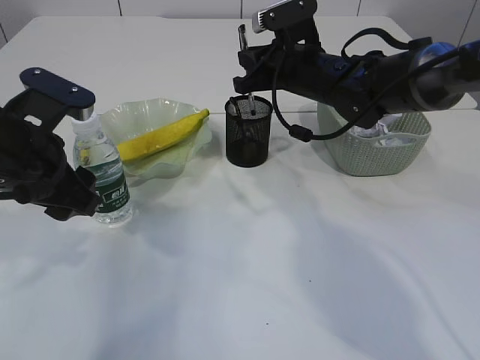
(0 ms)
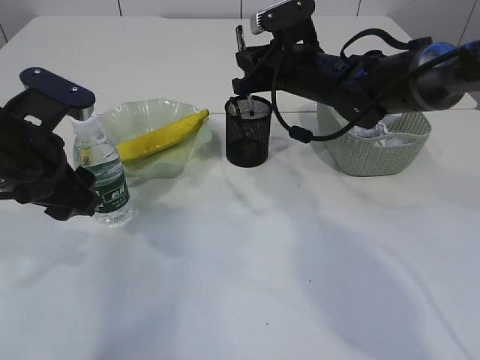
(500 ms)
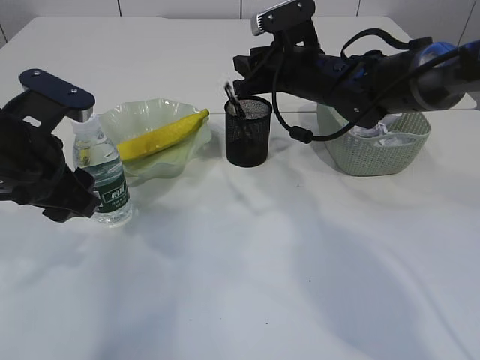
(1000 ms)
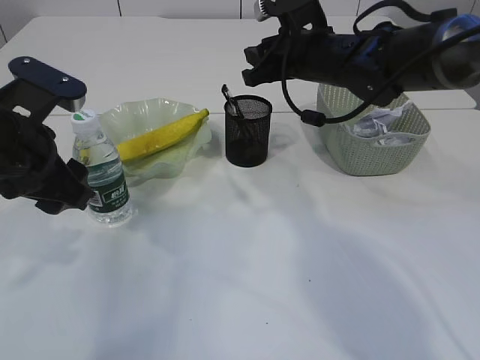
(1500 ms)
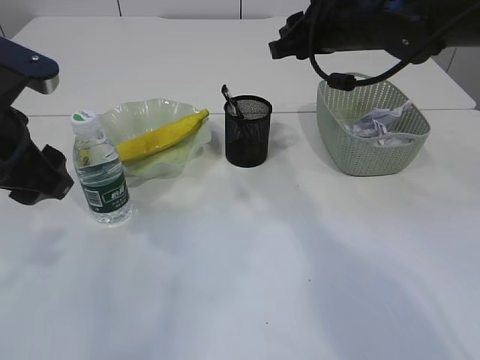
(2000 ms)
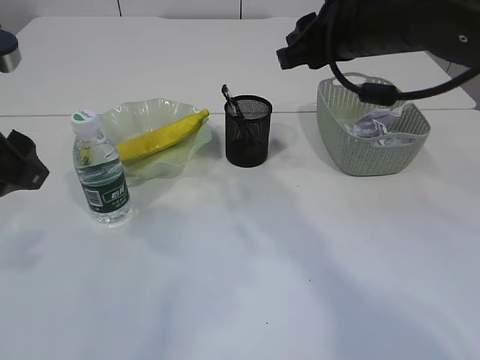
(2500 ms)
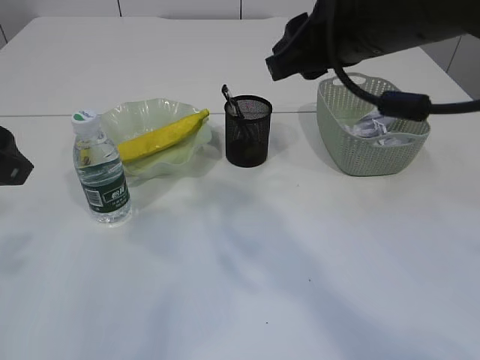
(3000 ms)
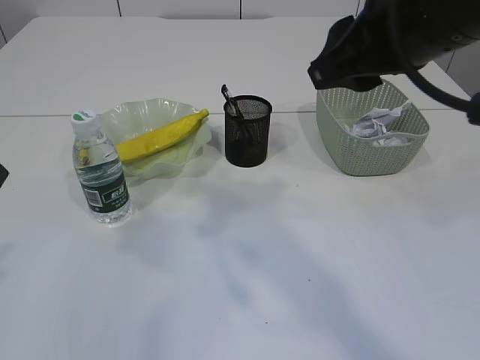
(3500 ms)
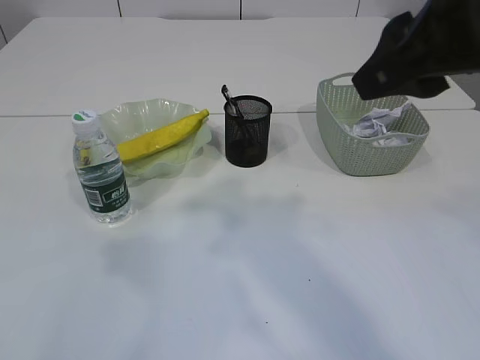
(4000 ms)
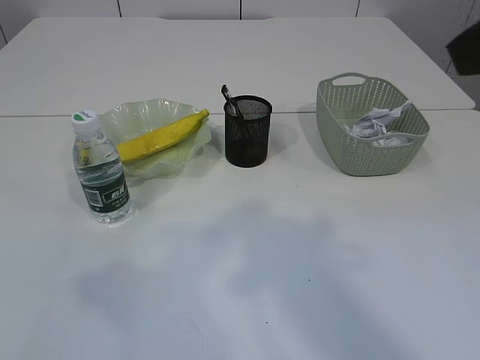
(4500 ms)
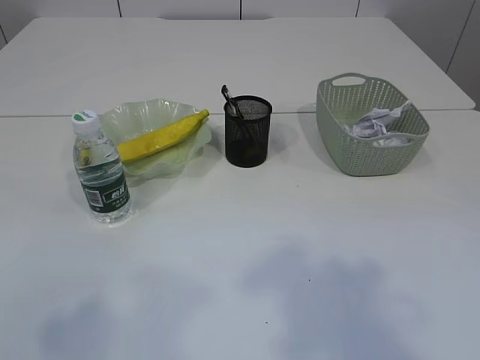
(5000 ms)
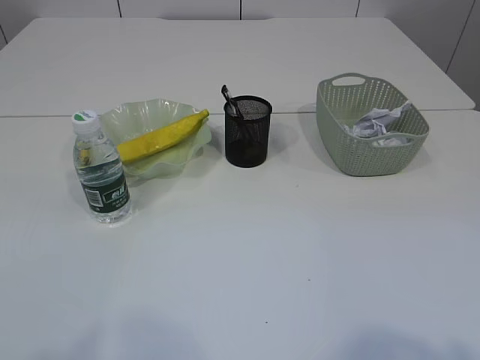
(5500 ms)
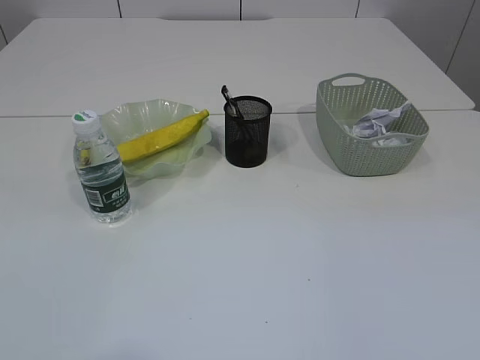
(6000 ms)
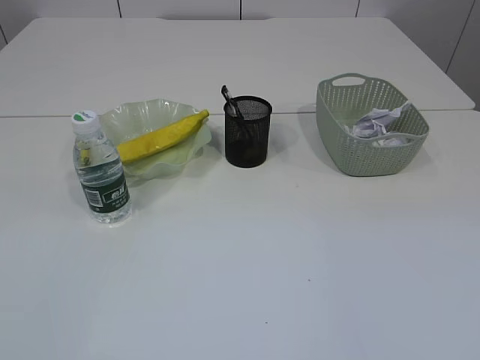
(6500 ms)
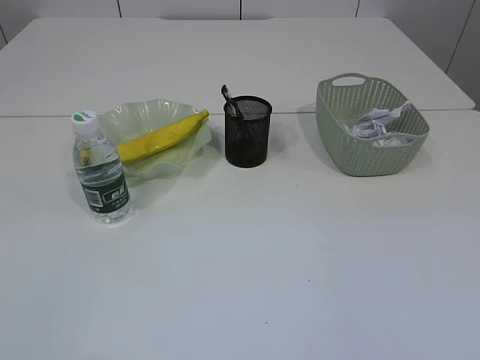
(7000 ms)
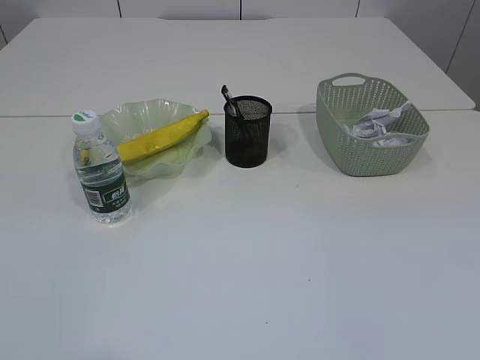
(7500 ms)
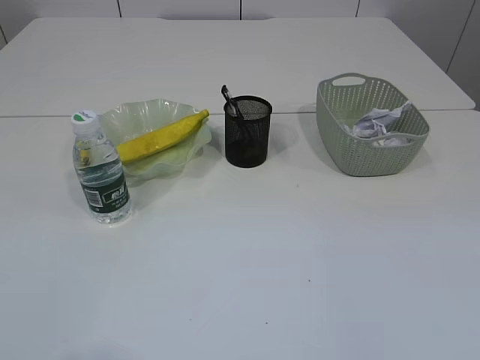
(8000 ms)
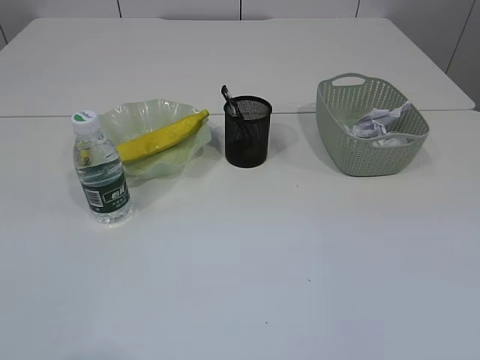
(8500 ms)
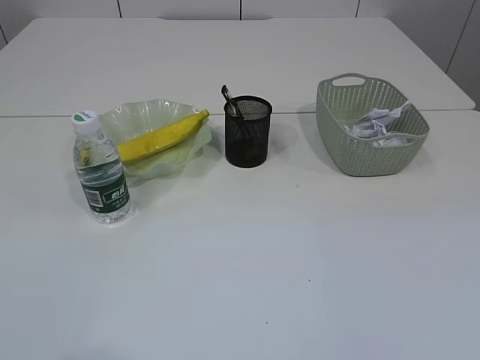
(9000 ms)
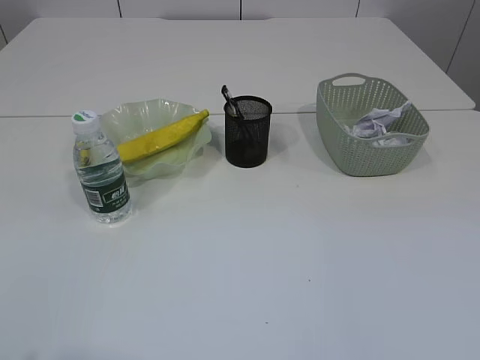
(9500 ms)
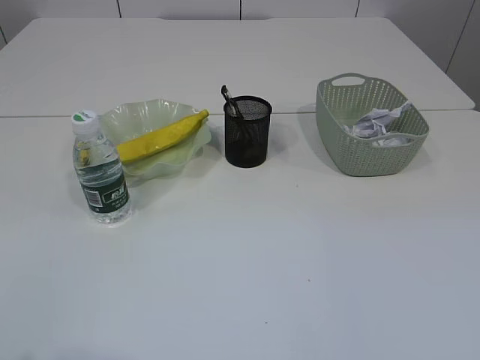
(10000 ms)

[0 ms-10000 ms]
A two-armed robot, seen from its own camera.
0 ms to 2000 ms: The right gripper moves upward, roughly 5 cm, and opens up.
2000 ms to 4000 ms: The right gripper heads backward and upward, covering approximately 25 cm. Meanwhile the left gripper moves backward and upward, some 10 cm.
4000 ms to 6000 ms: The right gripper heads backward and to the right, covering roughly 30 cm.

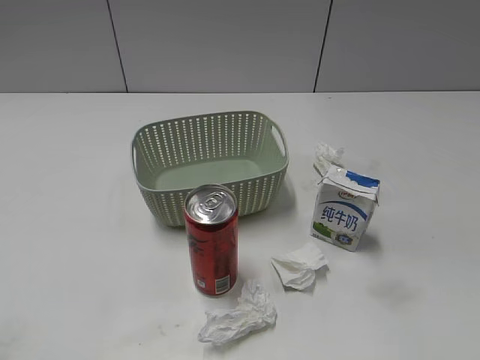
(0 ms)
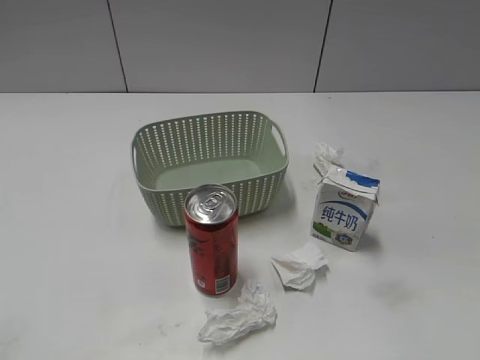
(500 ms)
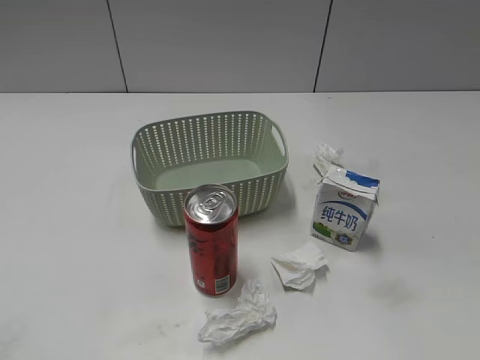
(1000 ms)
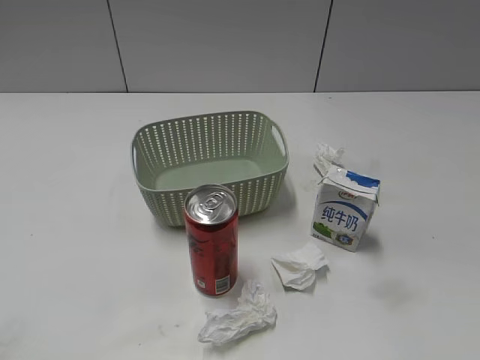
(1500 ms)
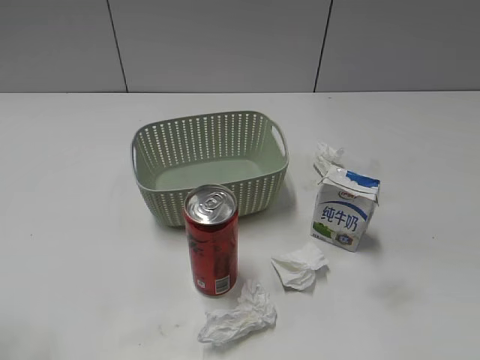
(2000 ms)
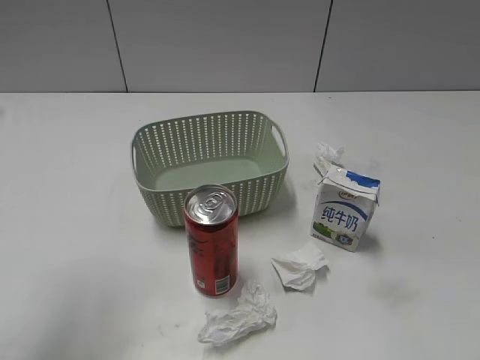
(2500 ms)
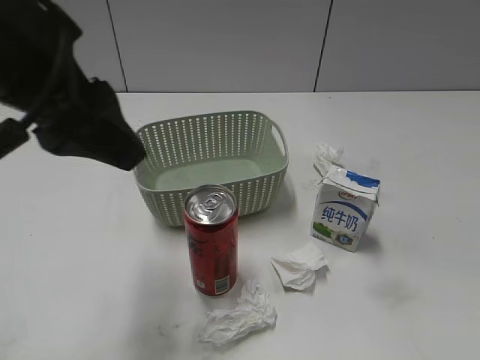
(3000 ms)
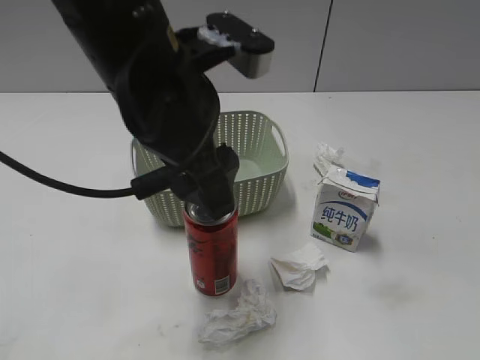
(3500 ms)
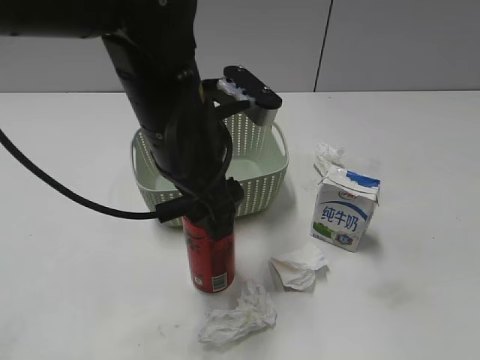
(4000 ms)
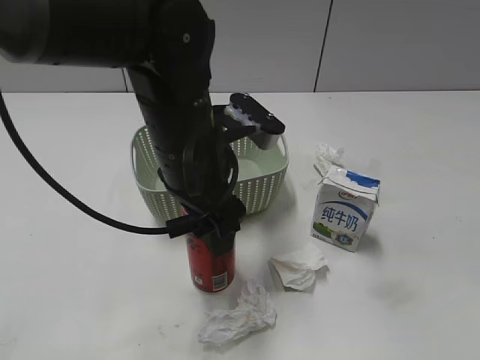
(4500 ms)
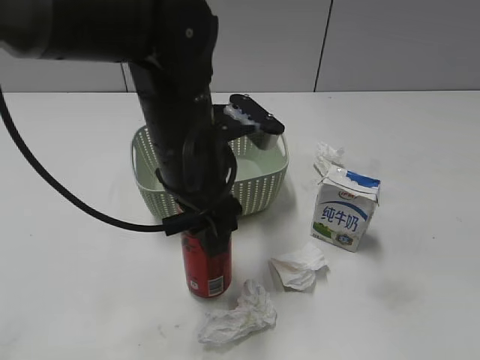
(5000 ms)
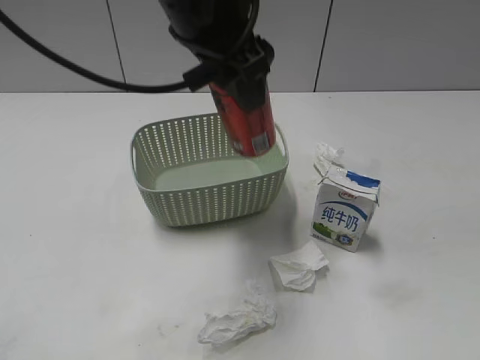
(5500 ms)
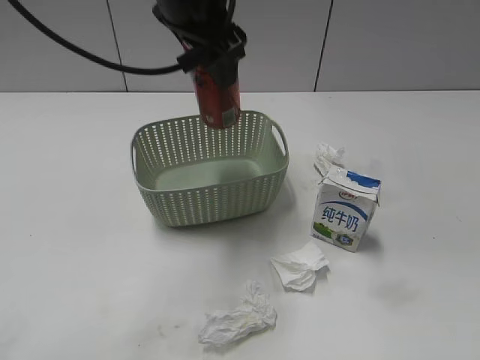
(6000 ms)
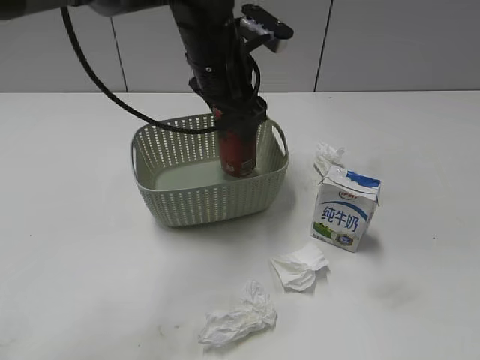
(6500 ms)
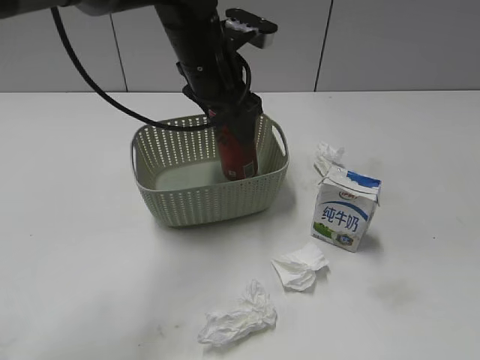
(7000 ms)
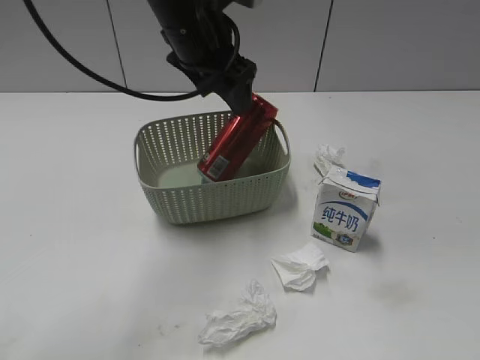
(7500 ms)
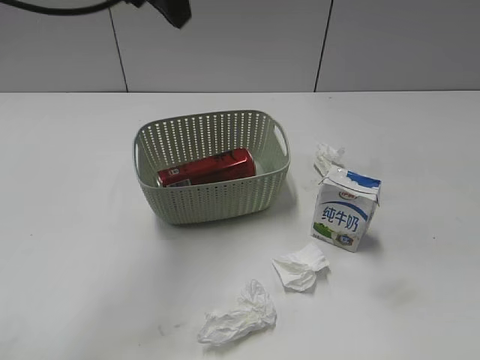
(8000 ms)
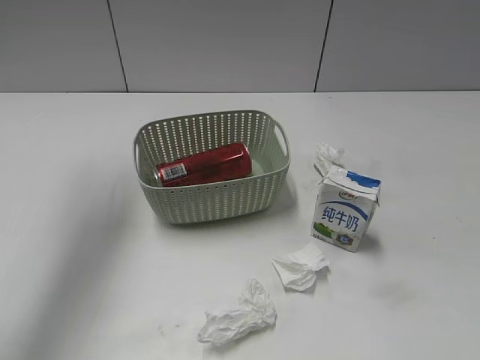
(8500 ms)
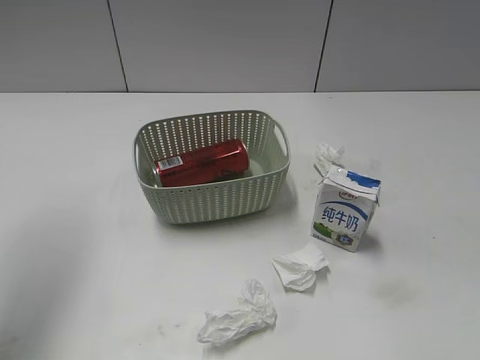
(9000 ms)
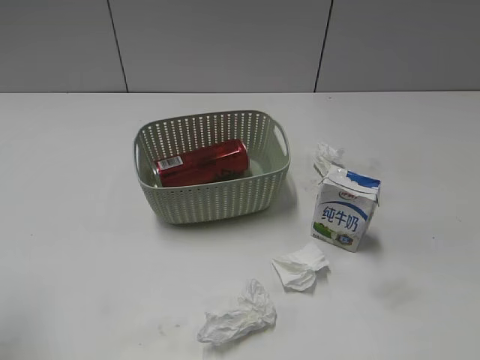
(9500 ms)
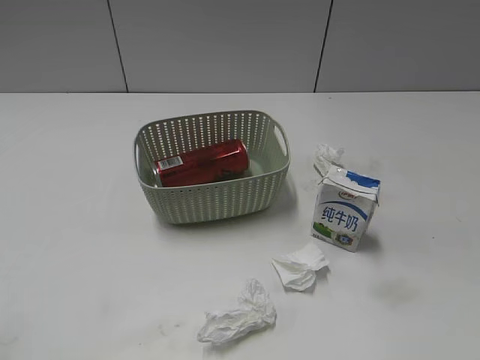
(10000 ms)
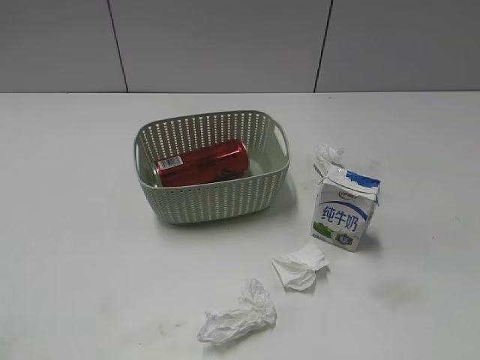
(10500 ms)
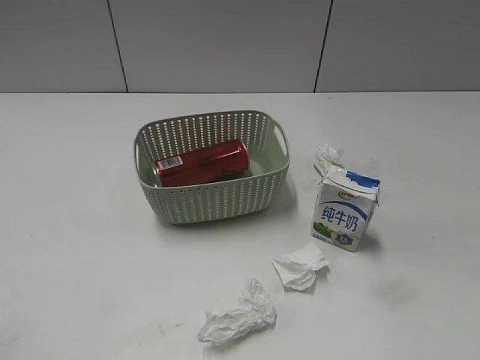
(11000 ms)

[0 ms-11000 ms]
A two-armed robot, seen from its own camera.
Step, 3000 ms to 4500 ms: Grasp the cola can with left gripper.
Step, 5000 ms to 7500 ms: Place the cola can in the basket with left gripper.
2000 ms to 3500 ms: The left gripper shifts approximately 30 cm to the right and forward, and opens up.
3500 ms to 5500 ms: The left gripper moves approximately 5 cm, and closes up.
5500 ms to 7500 ms: The left gripper is displaced forward and downward by about 10 cm, and opens.
7500 ms to 9000 ms: The left gripper travels to the left, upward and backward by roughly 30 cm, and closes its fingers.
9000 ms to 11000 ms: The left gripper heads backward and downward, covering approximately 30 cm.
